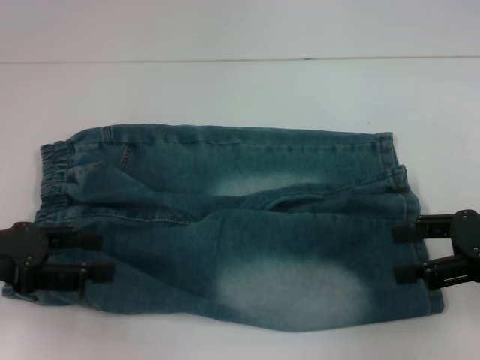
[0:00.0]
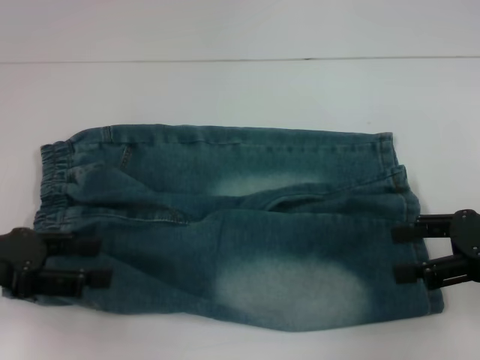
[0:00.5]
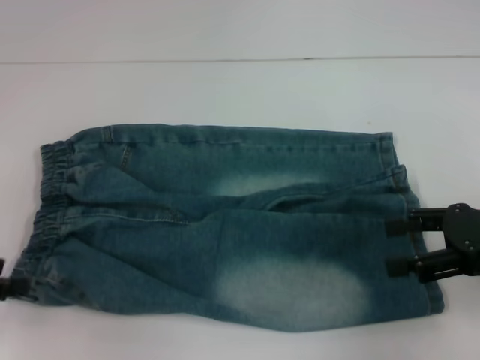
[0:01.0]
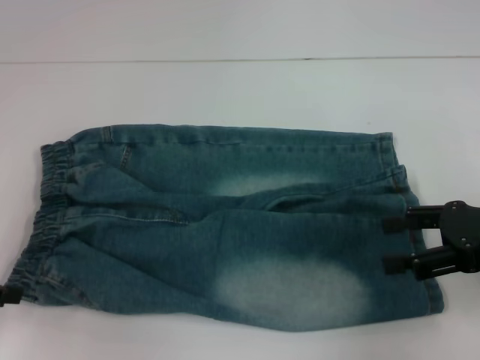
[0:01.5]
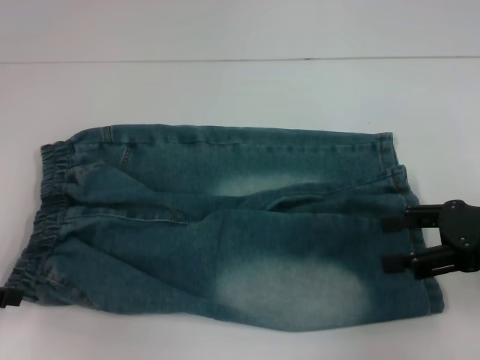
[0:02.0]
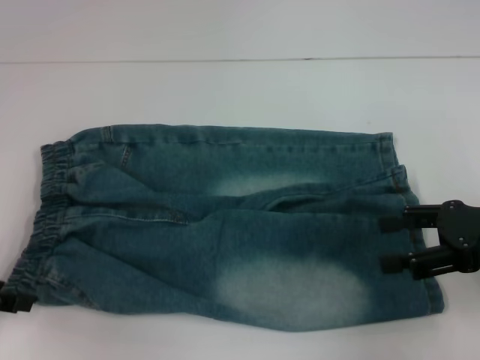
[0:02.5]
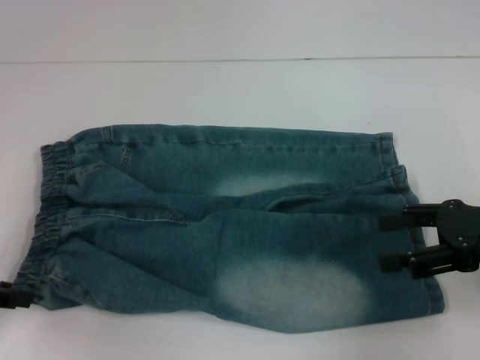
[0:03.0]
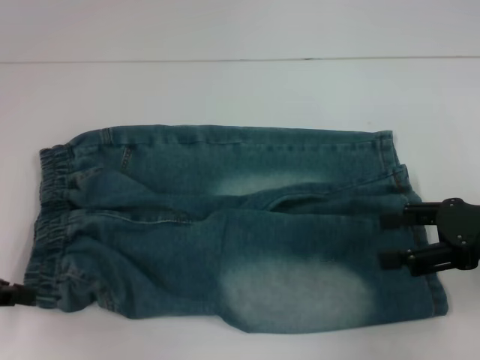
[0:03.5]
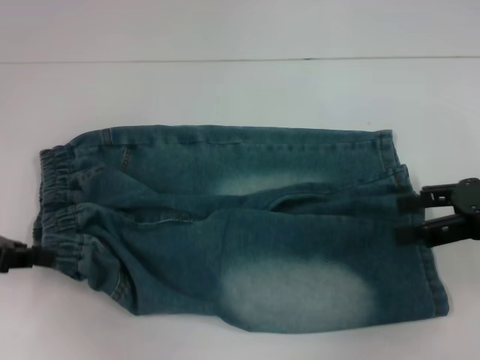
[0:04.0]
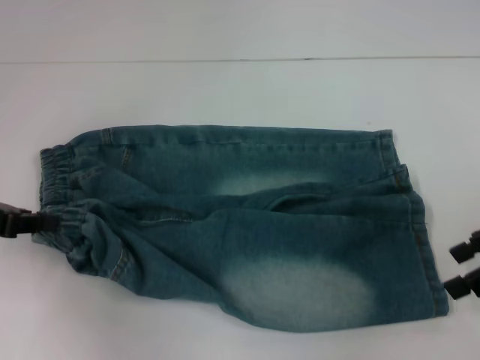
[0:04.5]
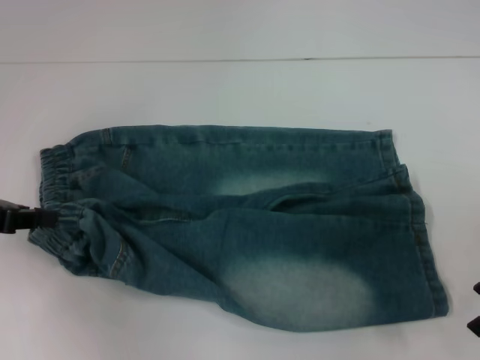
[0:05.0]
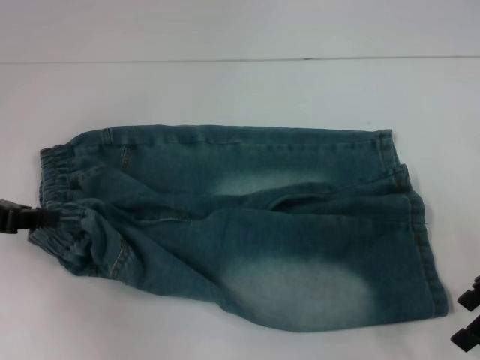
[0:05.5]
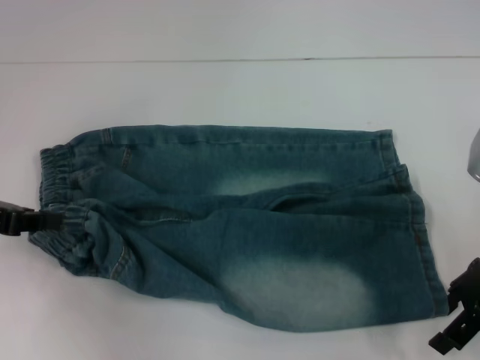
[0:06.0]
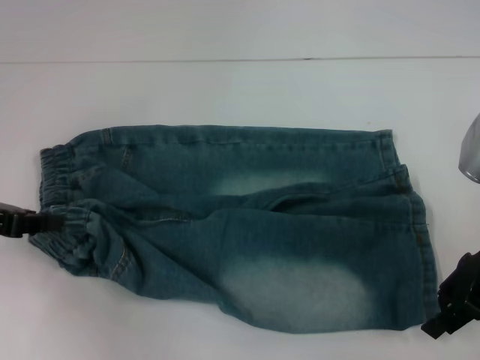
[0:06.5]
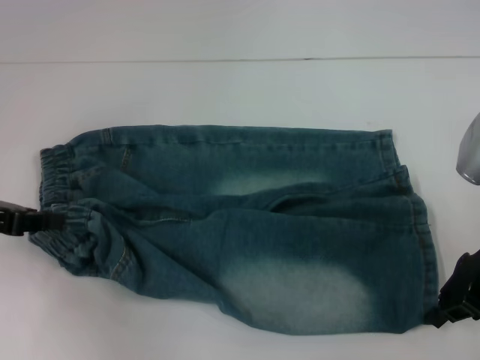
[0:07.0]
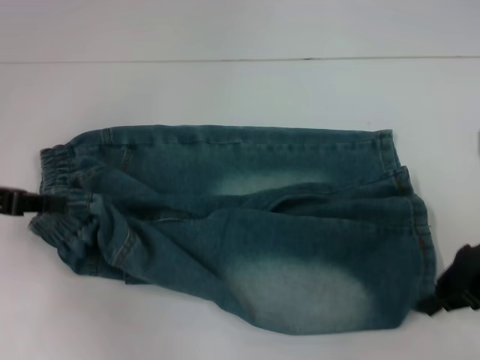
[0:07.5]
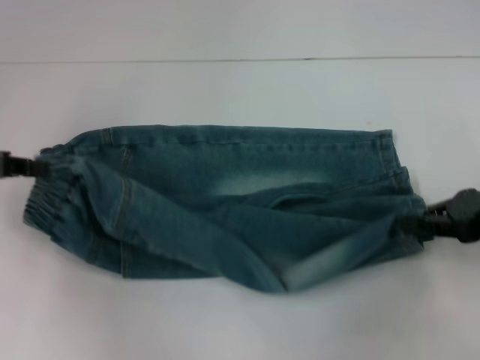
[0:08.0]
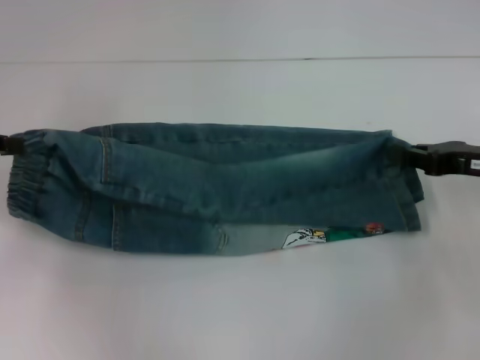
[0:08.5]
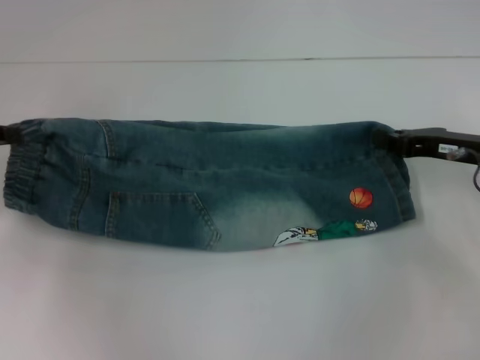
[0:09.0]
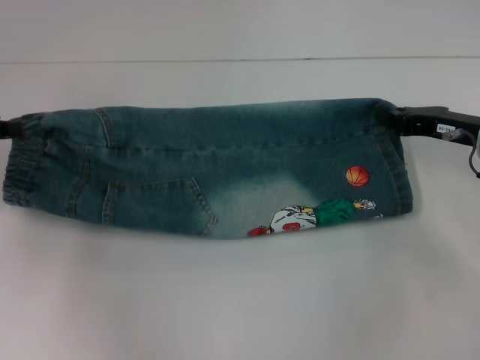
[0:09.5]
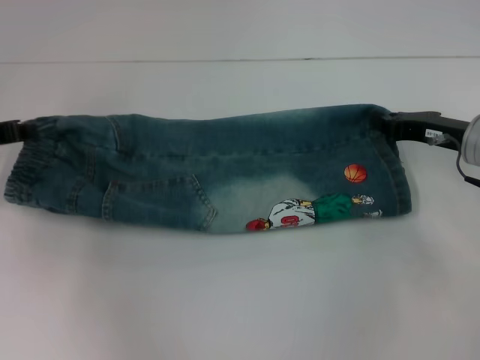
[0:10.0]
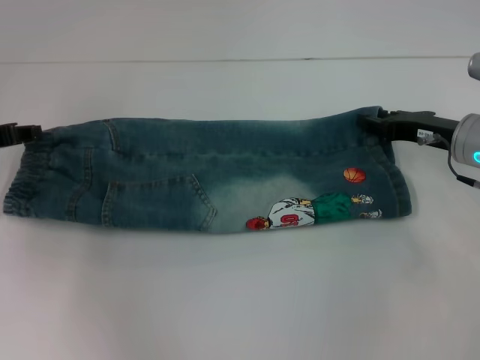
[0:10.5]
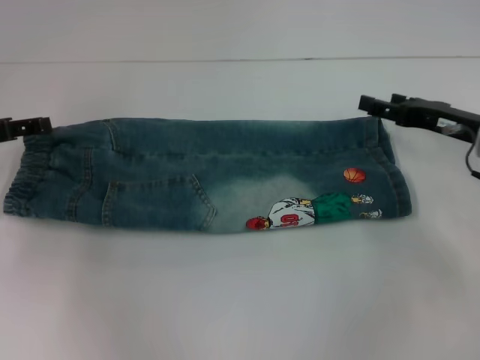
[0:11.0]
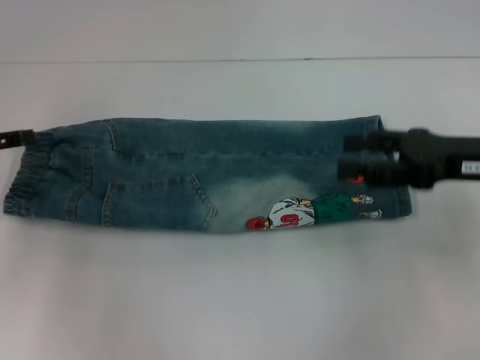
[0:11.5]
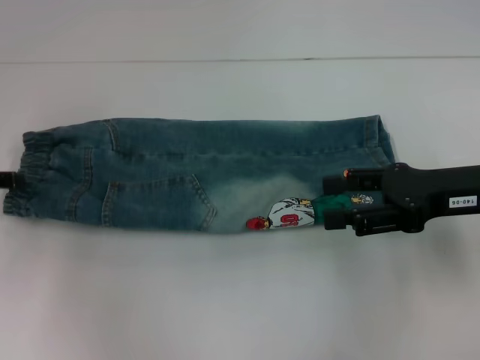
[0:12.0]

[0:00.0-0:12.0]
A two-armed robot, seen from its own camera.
Step, 0:00.0 to 0:03.5: Hold the lower left waistband with your left hand.
Step, 0:04.0 to 0:07.0: Grab the lower right pant leg with your right hand.
Step, 0:07.5 to 0:10.0: Fold upward with your left hand.
0:00.0 to 0:02.0: The left gripper moves to the left, roughly 5 cm.
0:02.0 to 0:04.0: The left gripper closes its fingers.
0:04.0 to 0:06.0: The right gripper ends up roughly 5 cm from where it was.
0:06.0 to 0:08.0: The right gripper closes up.
0:08.0 to 0:10.0: The left gripper shifts by roughly 5 cm, while the right gripper heads forward, covering roughly 5 cm.
0:10.0 to 0:12.0: The right gripper moves backward and upward, some 10 cm, and opens its fingers. Meanwhile the left gripper ends up about 5 cm from where it was, and opens up.

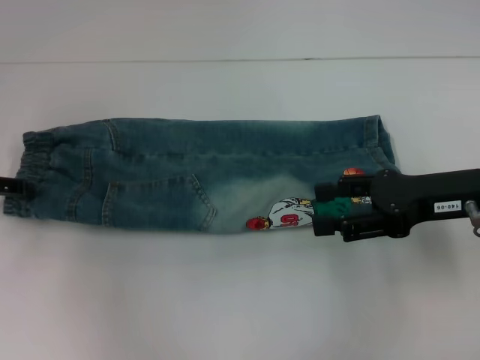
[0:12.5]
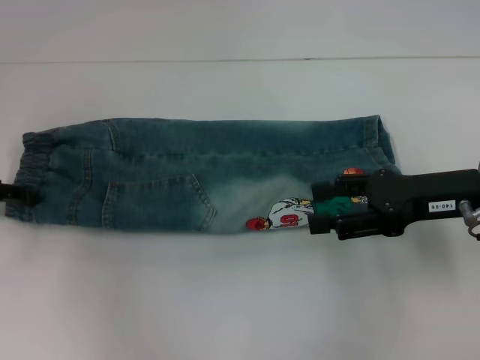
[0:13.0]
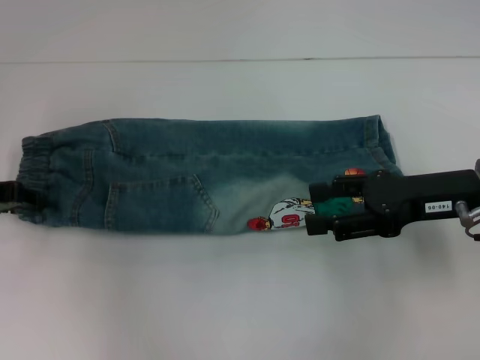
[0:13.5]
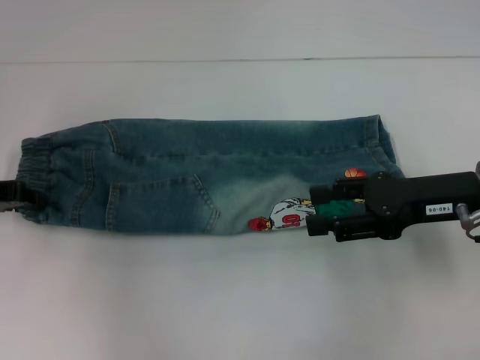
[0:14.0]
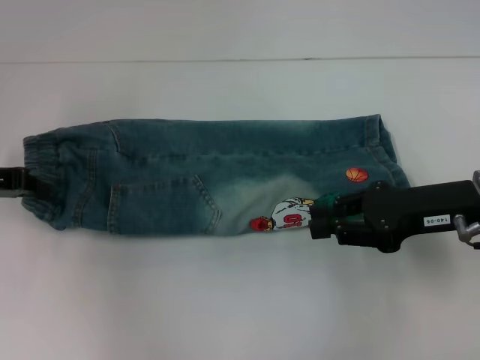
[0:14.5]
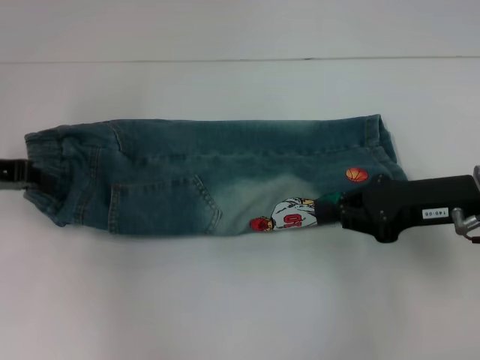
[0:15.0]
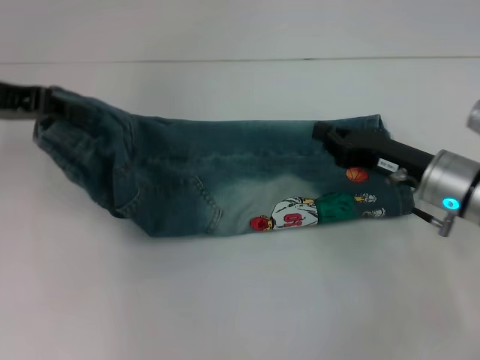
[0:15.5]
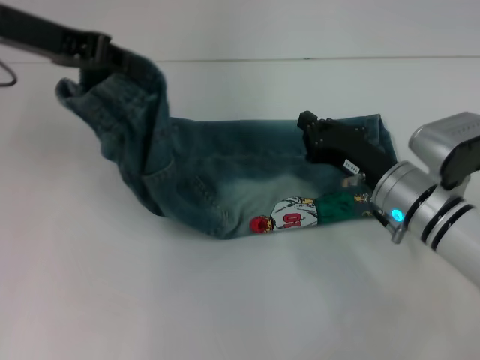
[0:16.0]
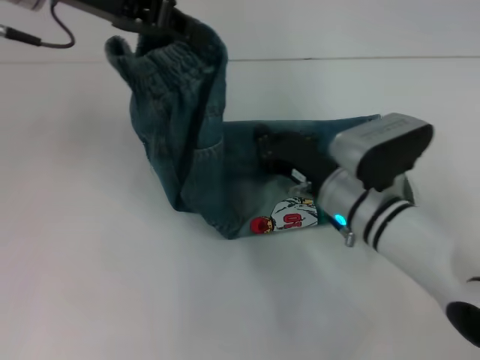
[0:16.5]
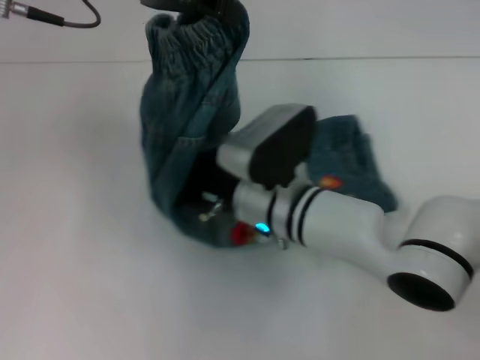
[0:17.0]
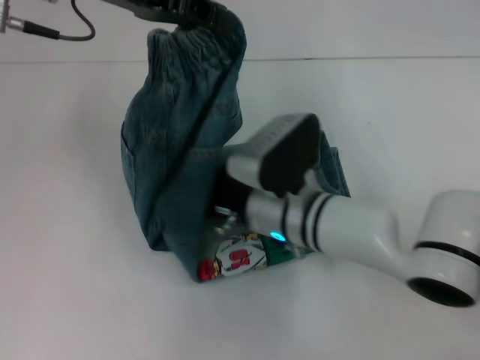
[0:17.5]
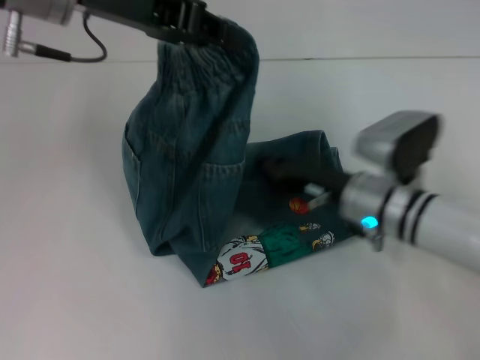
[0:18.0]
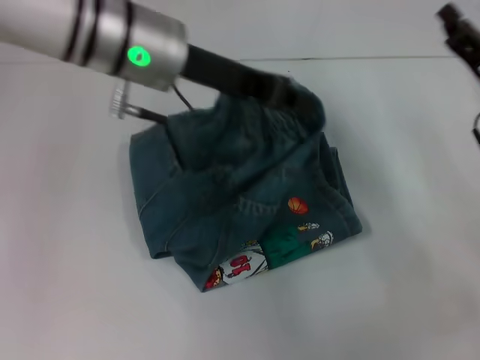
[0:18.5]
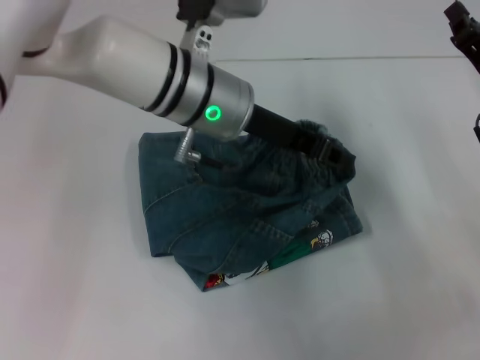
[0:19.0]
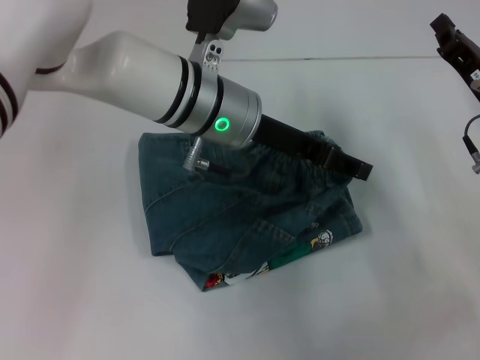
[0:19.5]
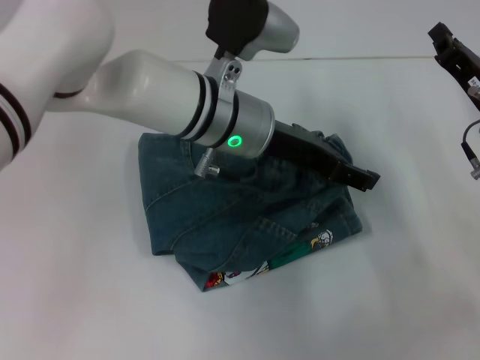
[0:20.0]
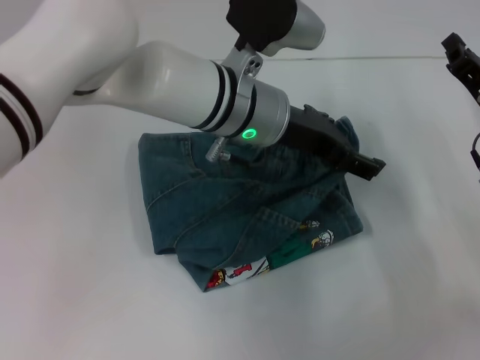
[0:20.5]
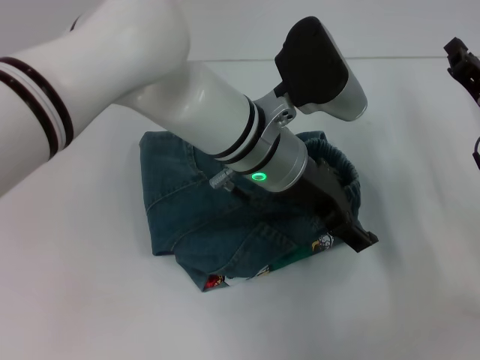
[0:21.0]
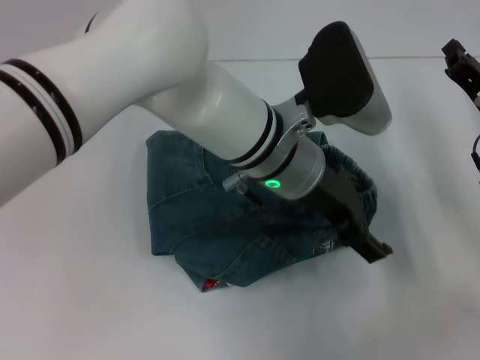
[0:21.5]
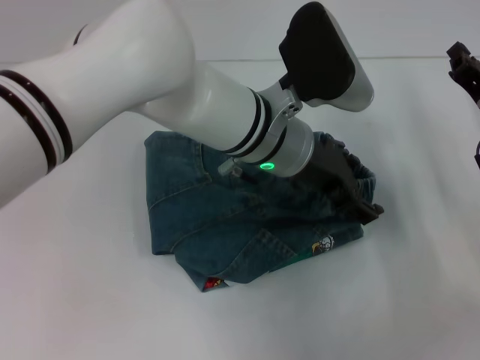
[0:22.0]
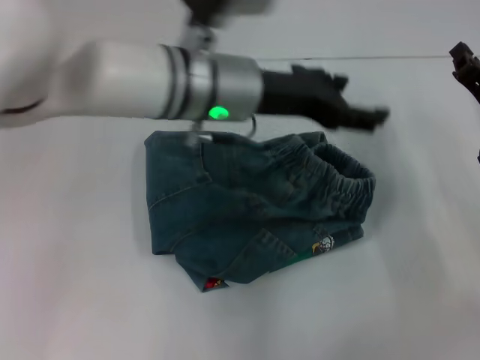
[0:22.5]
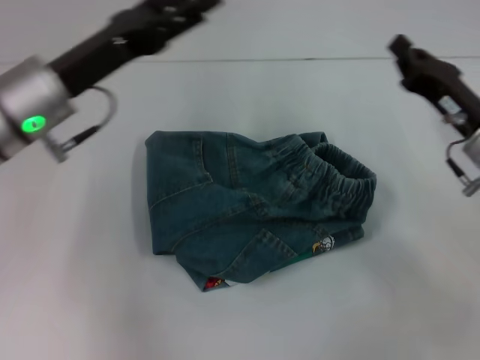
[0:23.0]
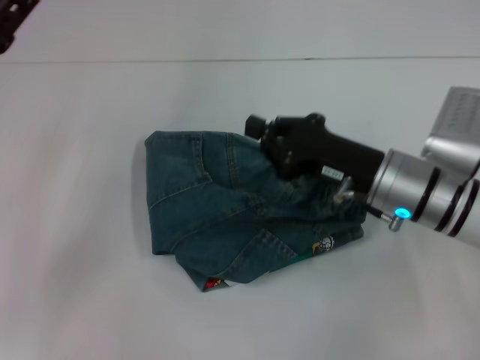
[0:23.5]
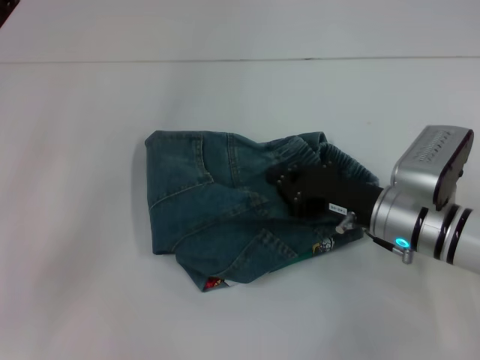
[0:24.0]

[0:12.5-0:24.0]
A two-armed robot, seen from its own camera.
Step, 0:13.5 to 0:17.0: Press the middle of the pants with your right hand.
Step, 0:17.5 to 0:21.5: Fold to the right with your left hand.
0:12.5 to 0:14.5: The right gripper closes its fingers; the left gripper closes up.
0:14.5 to 0:16.5: The right gripper travels to the left and downward by about 15 cm, and closes, while the left gripper heads upward and to the right, covering about 20 cm.
0:16.5 to 0:18.5: The left gripper is displaced to the right and downward by about 10 cm, while the right gripper heads to the right, covering roughly 15 cm.
0:18.5 to 0:20.0: The left gripper shifts roughly 10 cm to the right and downward, and opens its fingers.
0:22.0 to 0:24.0: The left gripper is displaced to the left by approximately 30 cm. The right gripper travels to the left by approximately 10 cm.

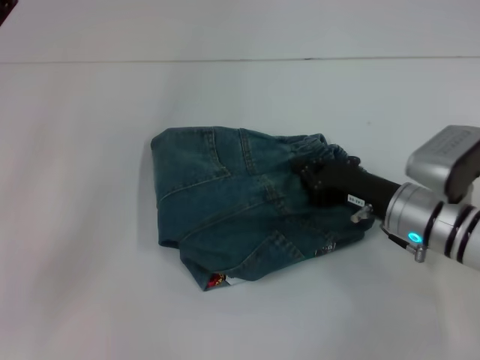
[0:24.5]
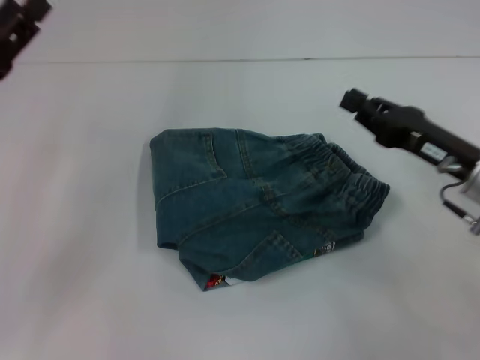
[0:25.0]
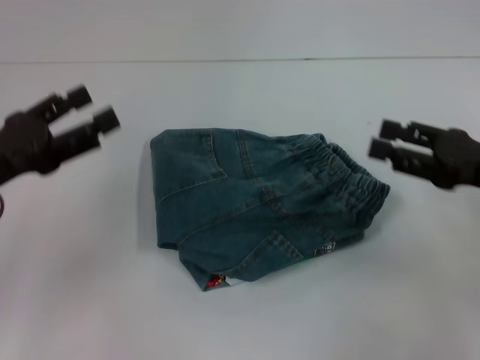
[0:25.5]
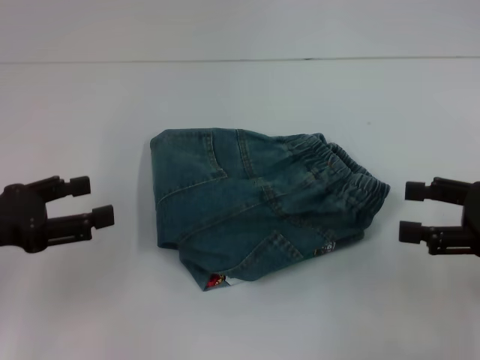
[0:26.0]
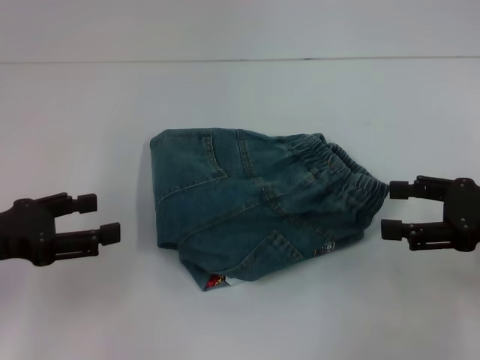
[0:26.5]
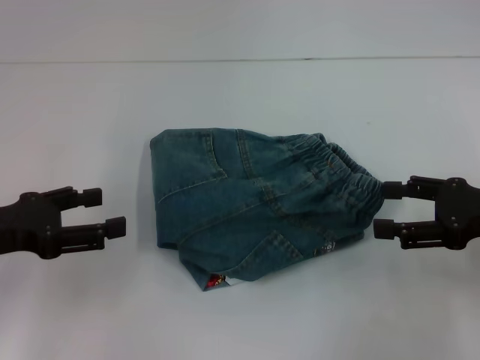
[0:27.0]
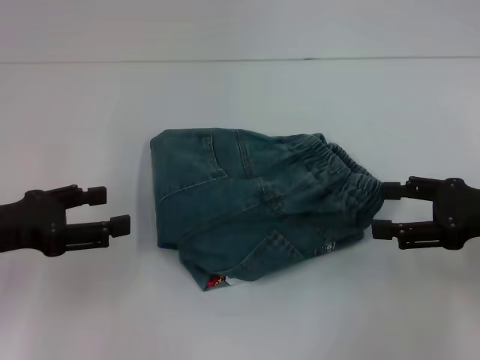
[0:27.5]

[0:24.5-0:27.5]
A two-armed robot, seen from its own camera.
0:24.5 to 0:26.0: The left gripper is displaced backward by about 5 cm. Meanwhile the right gripper travels to the right, upward and backward by some 15 cm, and opens.
0:26.0 to 0:27.5: The grippers stay close to where they were, moving slightly.
